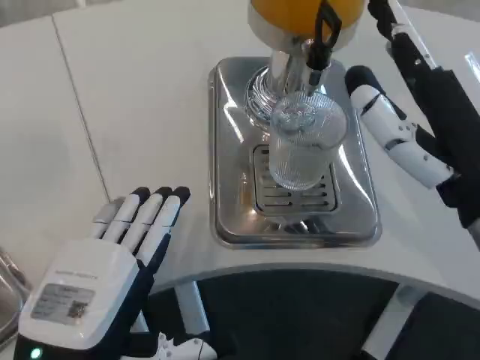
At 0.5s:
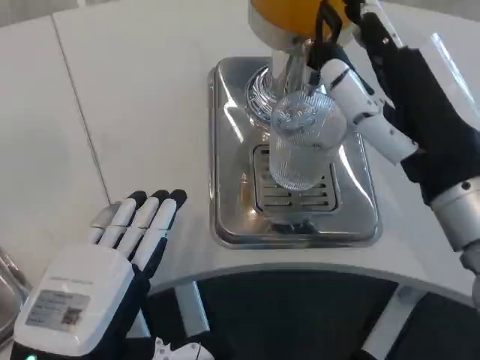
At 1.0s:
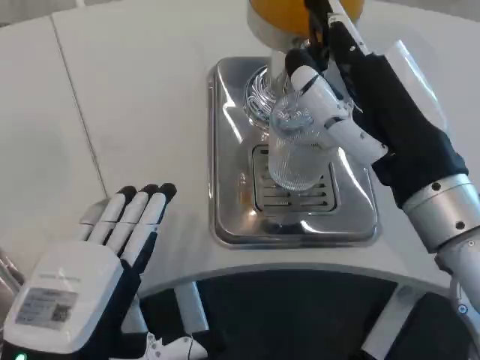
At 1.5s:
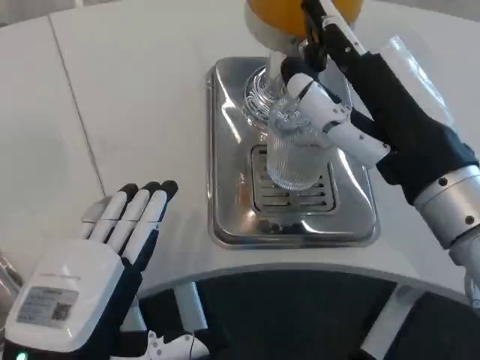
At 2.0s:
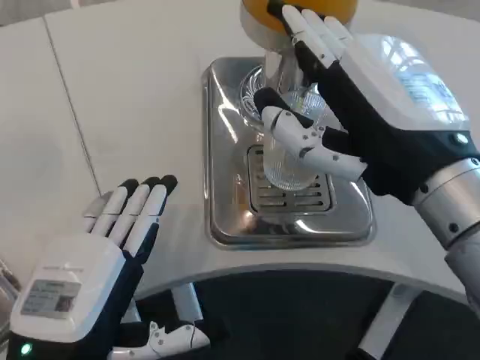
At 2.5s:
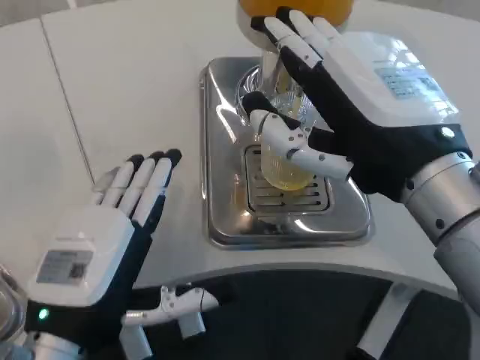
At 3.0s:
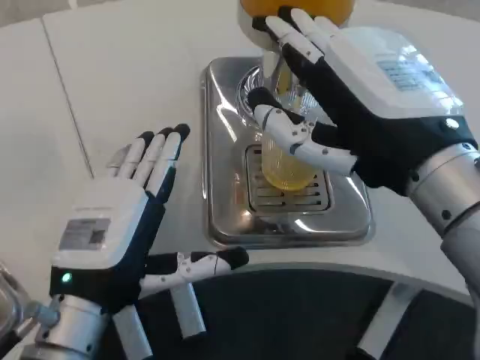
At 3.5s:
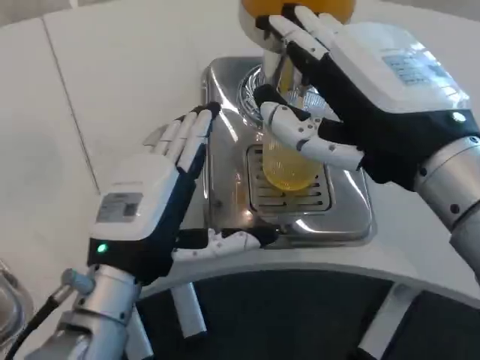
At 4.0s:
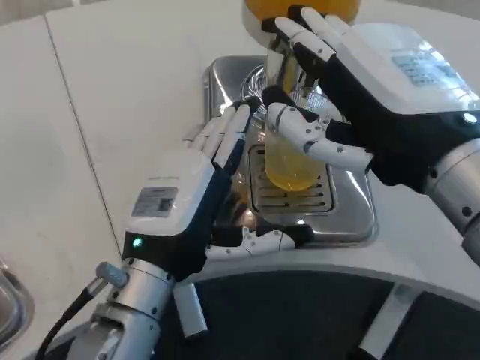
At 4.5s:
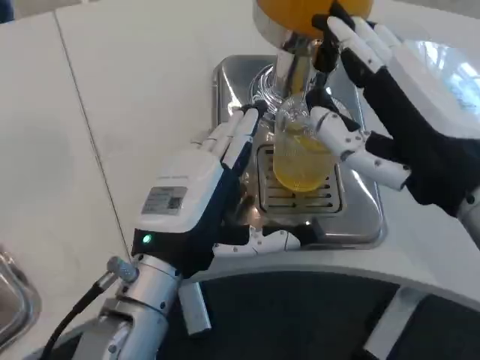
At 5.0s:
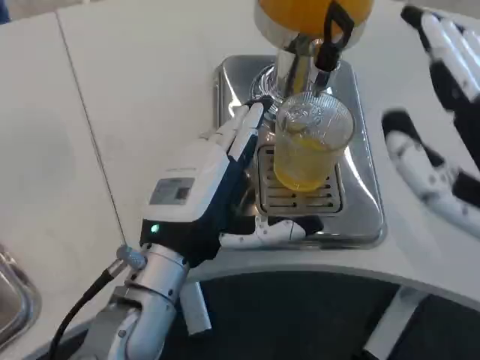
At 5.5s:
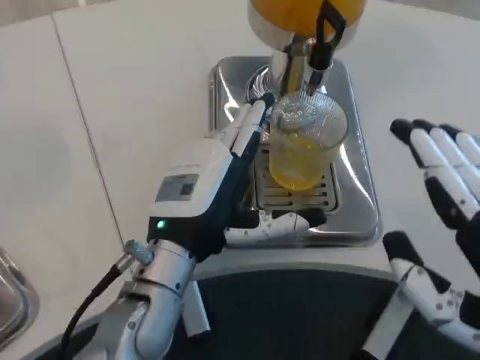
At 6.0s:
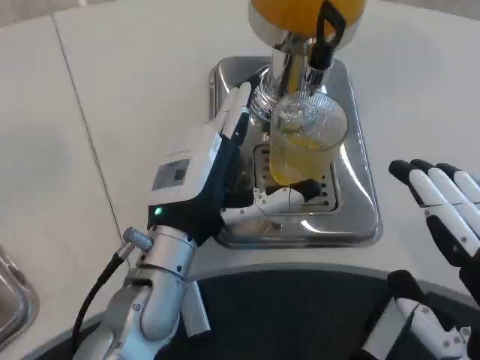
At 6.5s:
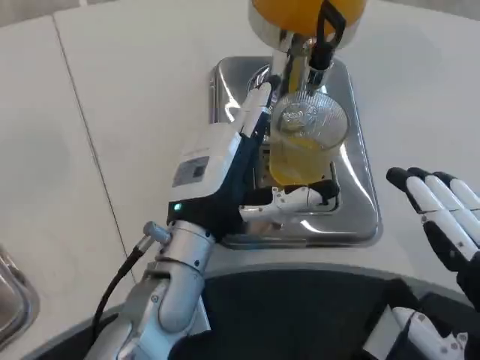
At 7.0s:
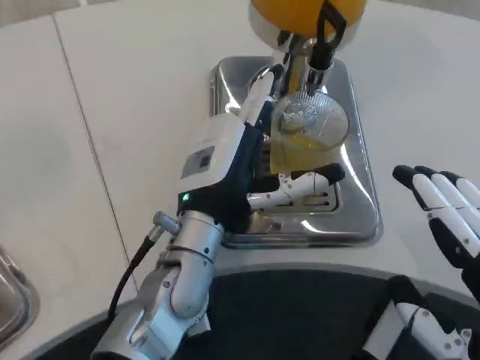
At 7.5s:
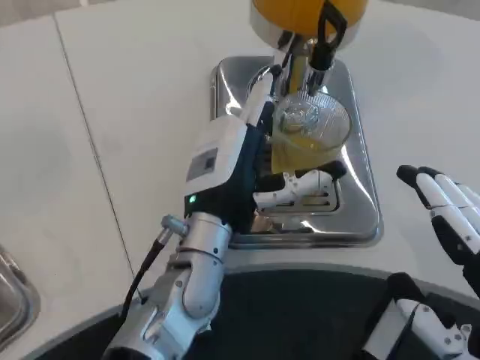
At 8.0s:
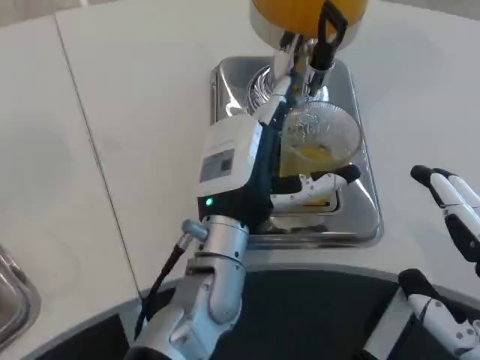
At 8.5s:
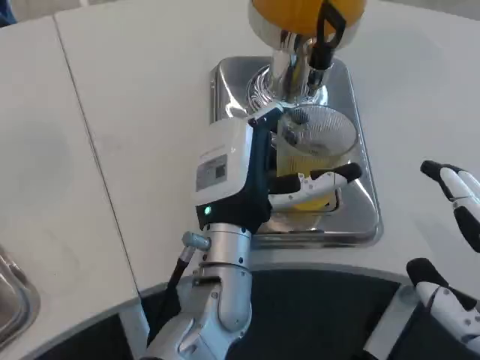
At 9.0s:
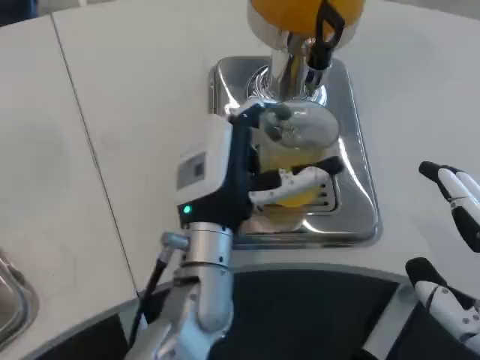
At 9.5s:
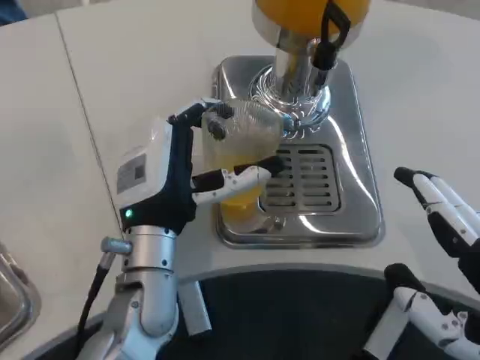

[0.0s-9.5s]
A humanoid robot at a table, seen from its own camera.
Task of the whole recording: Grasp the cup under the faucet to collect the drink, then remove the cup.
0.0s to 2.0s: The right hand moves some 5 cm.
2.0s to 4.0s: The left hand goes roughly 10 cm forward and to the right.
4.0s to 5.5s: The right hand heads backward, downward and to the right, covering some 15 cm.
5.5s to 7.5s: The left hand moves about 5 cm.

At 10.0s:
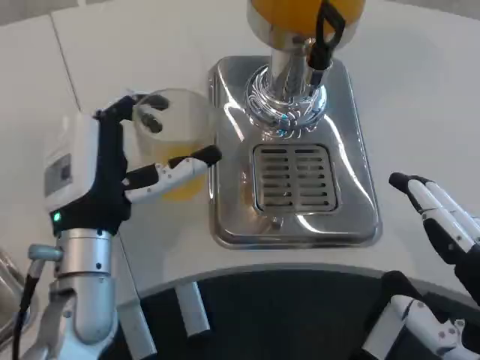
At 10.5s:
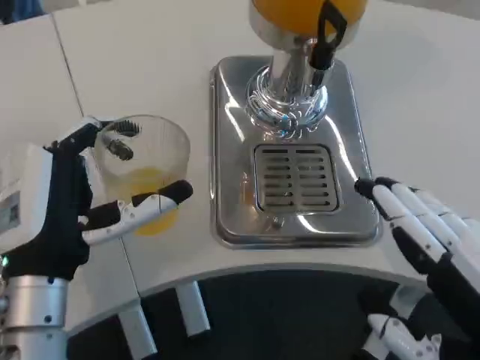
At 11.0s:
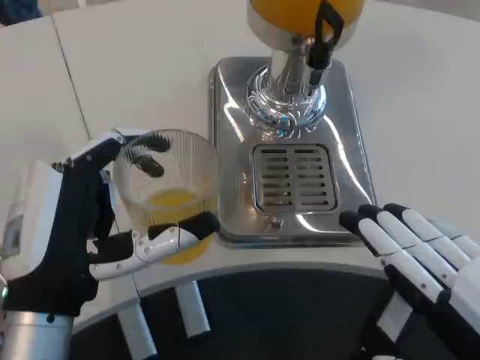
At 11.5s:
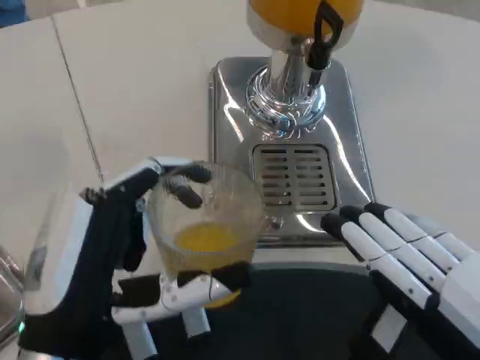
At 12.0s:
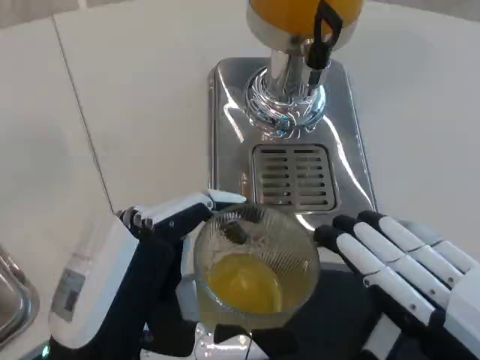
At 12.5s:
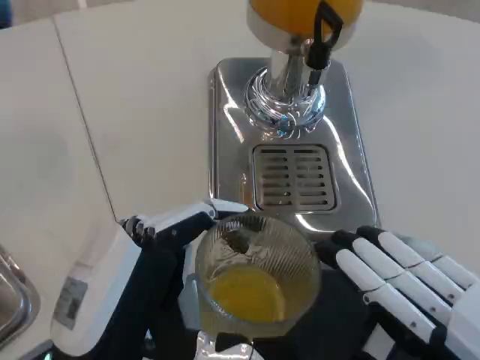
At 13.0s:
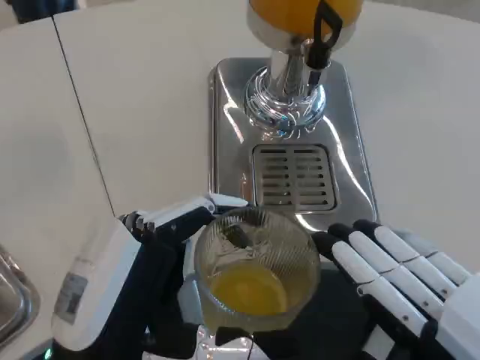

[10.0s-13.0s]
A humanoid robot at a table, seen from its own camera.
Task of the whole recording: Grasp the cup under the faucet to collect the drink, then remove the cup.
10.0s to 11.5s: The left hand shifts about 10 cm backward.

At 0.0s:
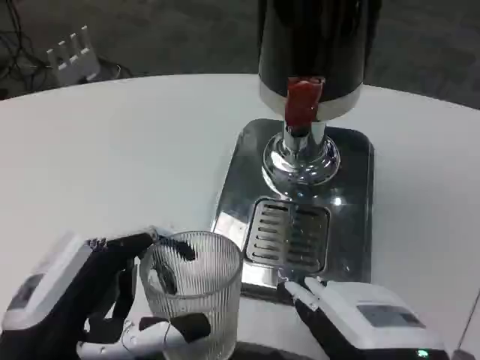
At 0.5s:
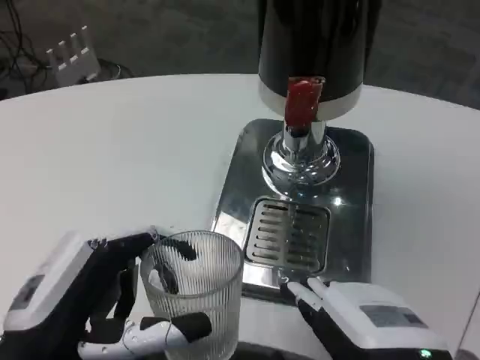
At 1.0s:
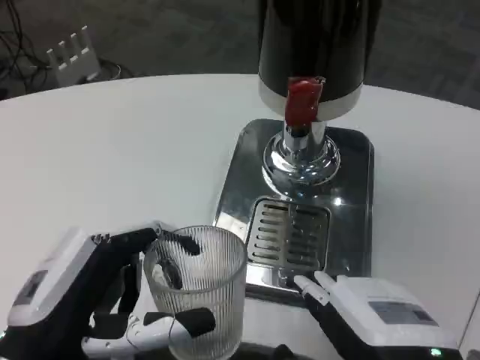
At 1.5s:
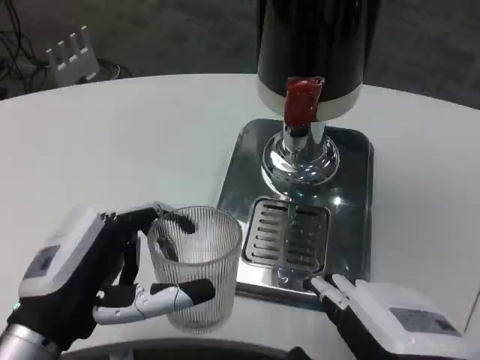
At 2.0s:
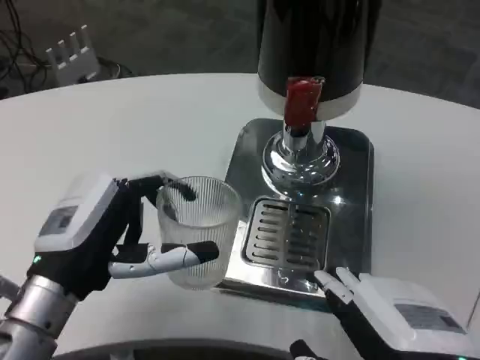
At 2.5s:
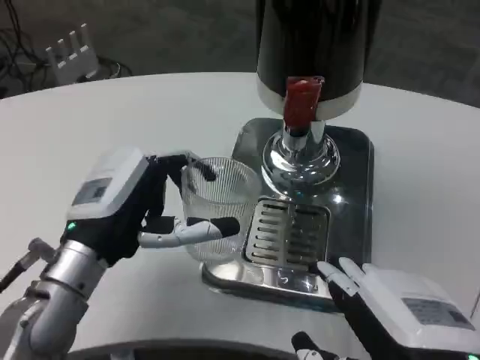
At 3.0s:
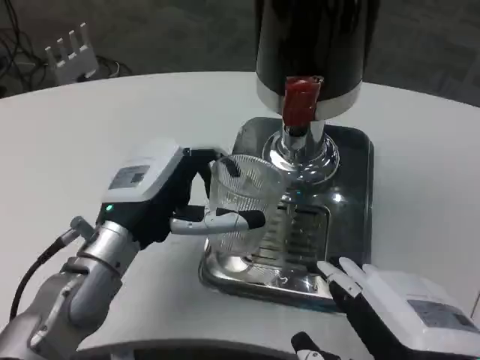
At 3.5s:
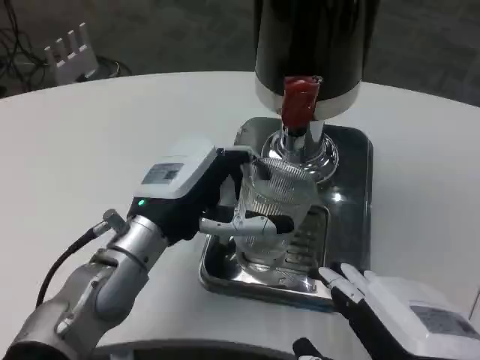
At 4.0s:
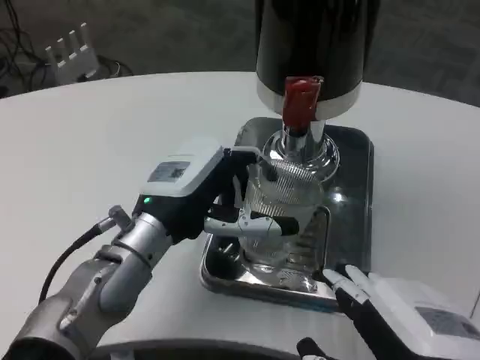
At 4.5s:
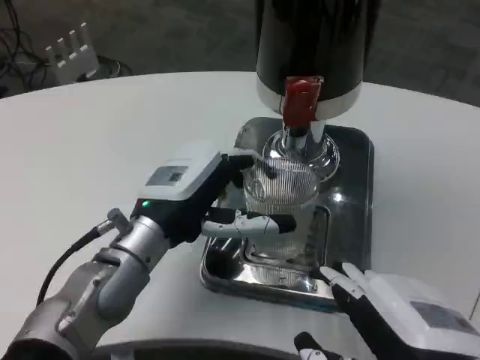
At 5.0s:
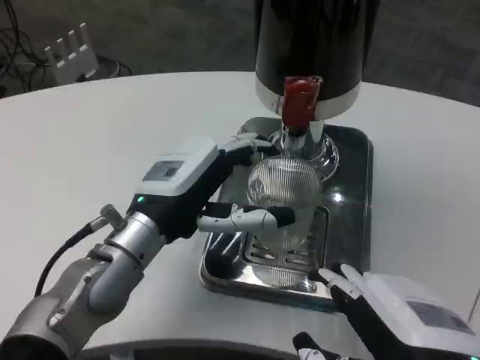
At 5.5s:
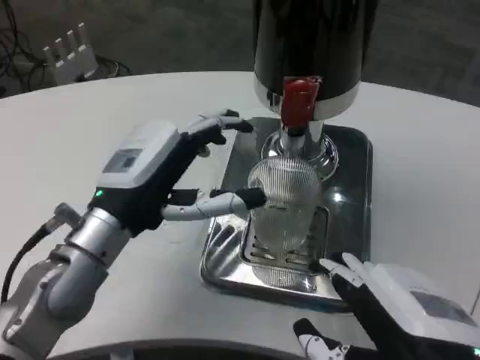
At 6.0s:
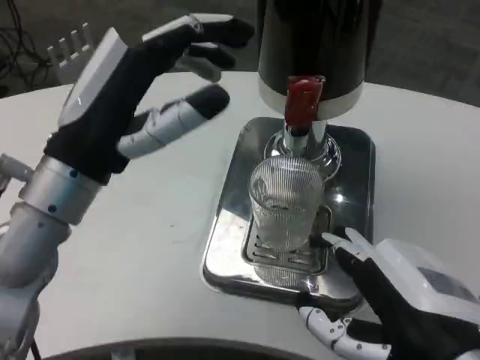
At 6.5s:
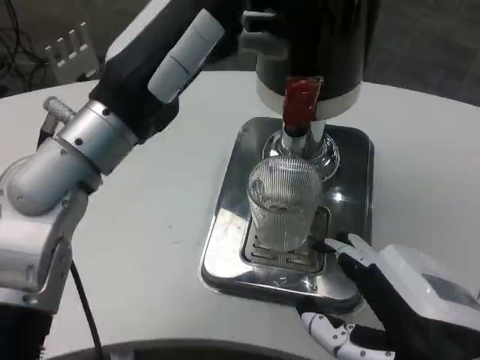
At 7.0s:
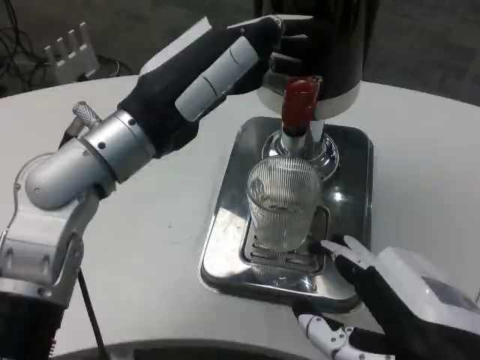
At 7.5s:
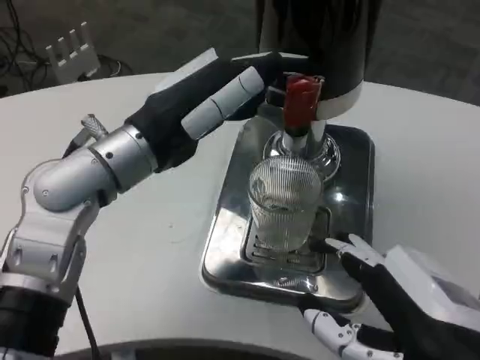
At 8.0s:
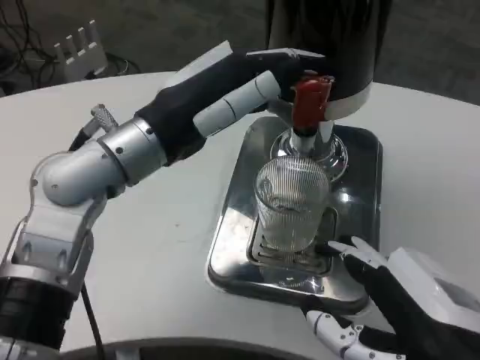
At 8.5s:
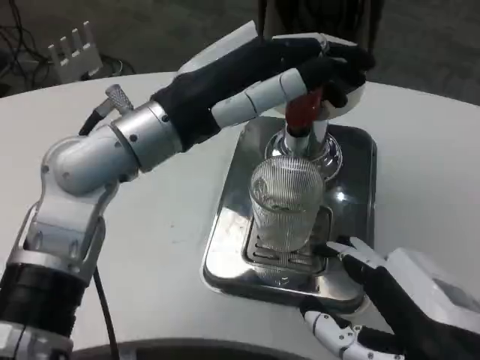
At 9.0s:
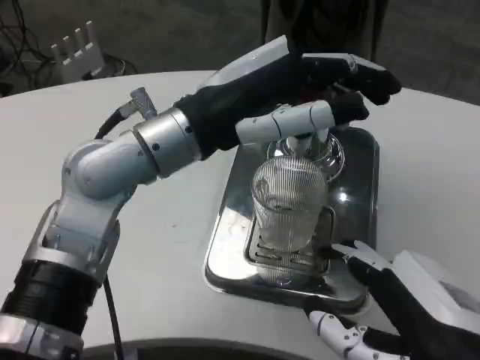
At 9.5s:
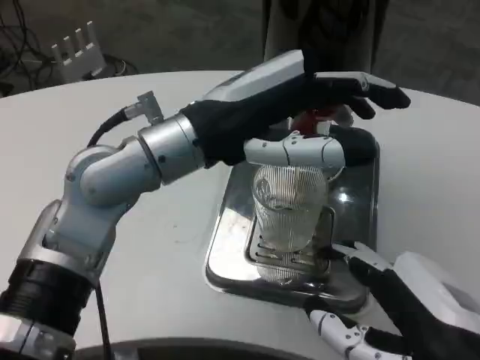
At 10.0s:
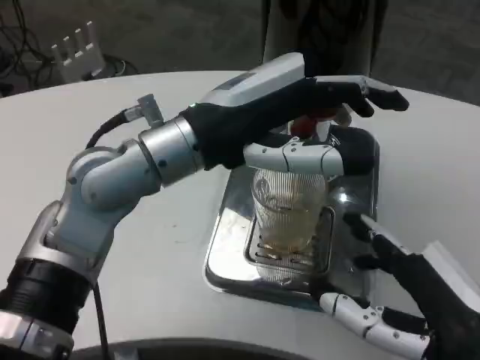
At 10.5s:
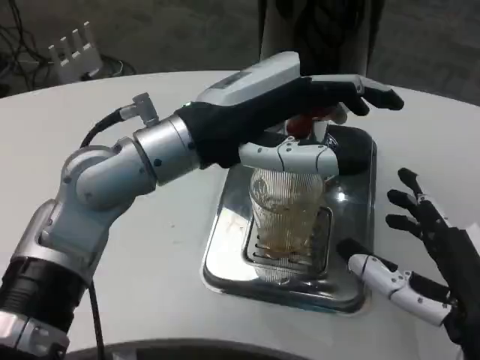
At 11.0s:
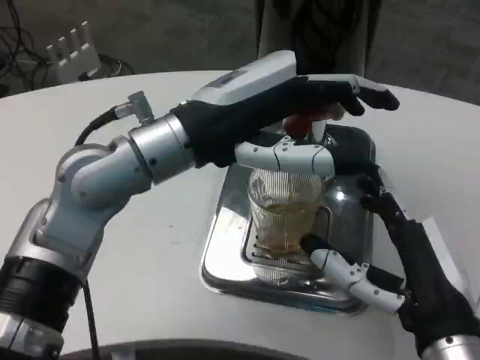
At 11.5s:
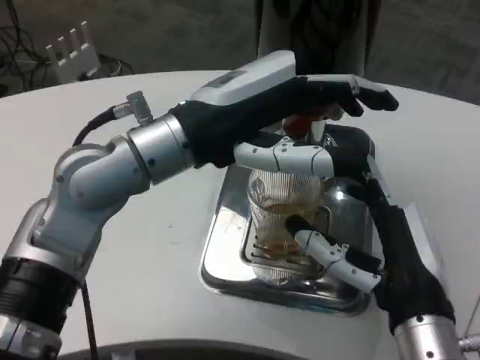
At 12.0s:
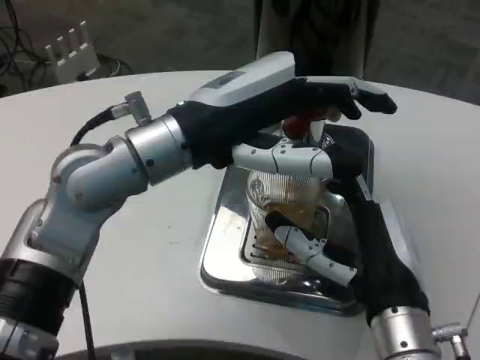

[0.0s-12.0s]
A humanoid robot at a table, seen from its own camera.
Task of the whole recording: Grasp the cup under the faucet to collect the drink, then remove the cup.
0.0s to 2.0s: The left hand goes approximately 10 cm forward.
2.0s to 4.0s: The left hand is displaced forward and to the right by approximately 10 cm.
4.0s to 6.0s: The left hand is displaced upward by roughly 10 cm.
6.0s to 8.0s: The left hand shifts by about 5 cm.
10.0s to 12.0s: The right hand moves forward, to the left and downward, some 10 cm.

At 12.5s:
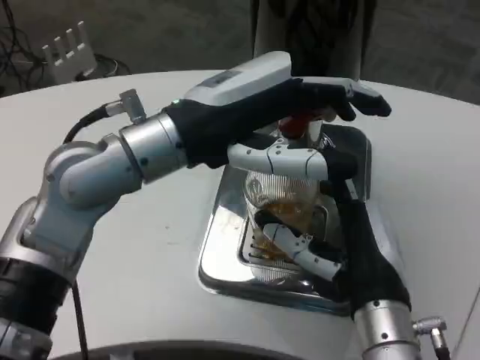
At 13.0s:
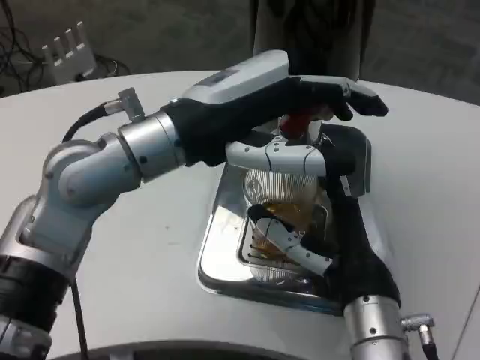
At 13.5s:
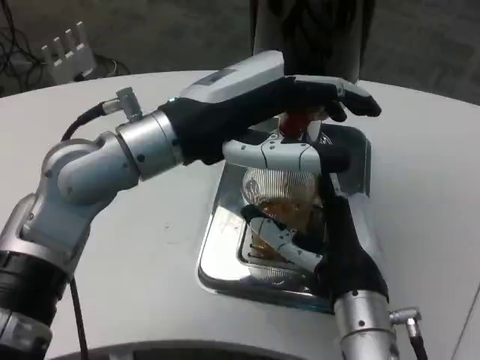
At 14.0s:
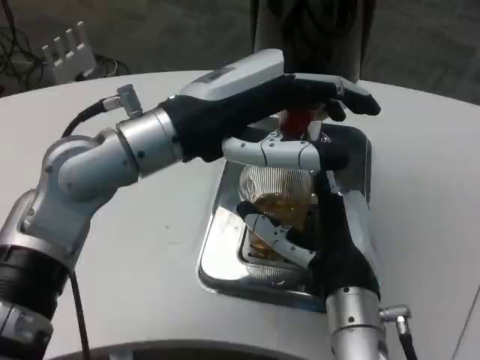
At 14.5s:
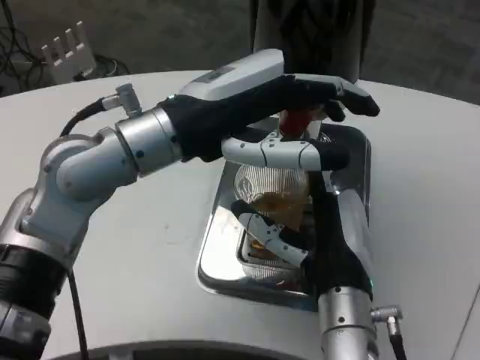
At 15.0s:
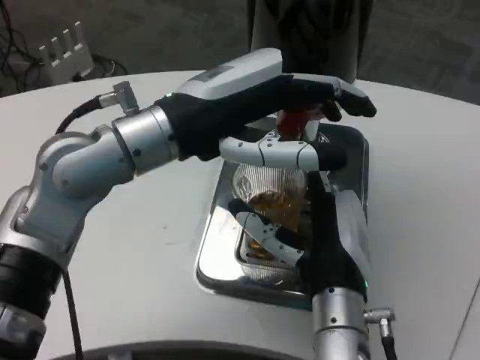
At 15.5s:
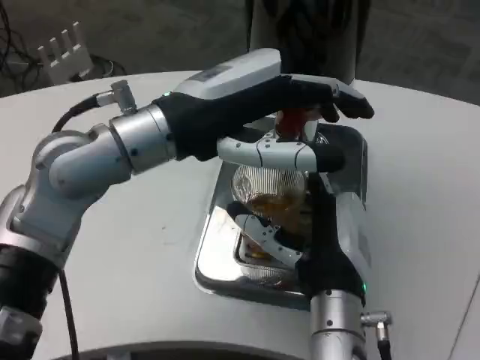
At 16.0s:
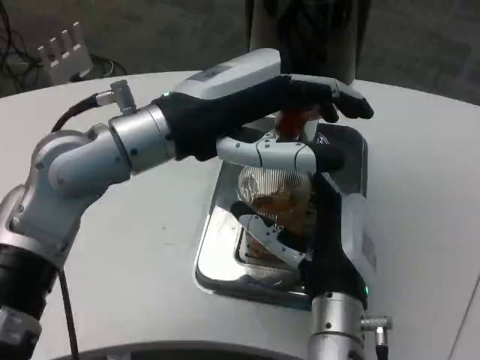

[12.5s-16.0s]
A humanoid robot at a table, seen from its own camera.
Task of the whole recording: Grasp the cup under the faucet to collect the drink, then remove the cup.
14.5s to 16.0s: The hands move only a little.
